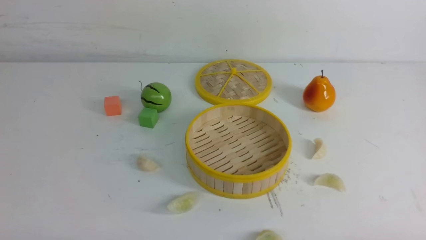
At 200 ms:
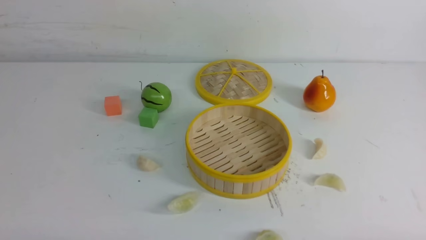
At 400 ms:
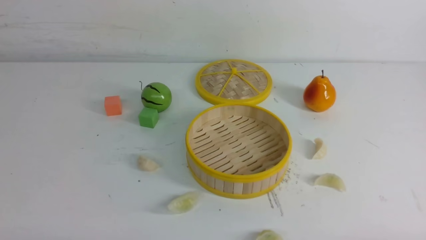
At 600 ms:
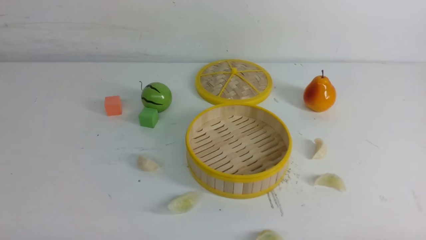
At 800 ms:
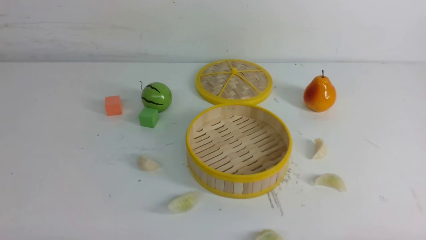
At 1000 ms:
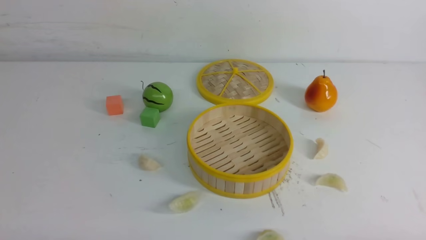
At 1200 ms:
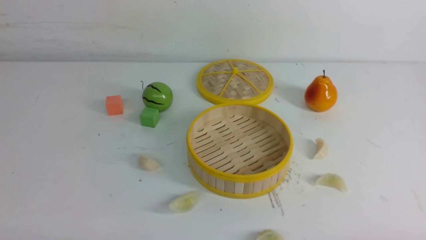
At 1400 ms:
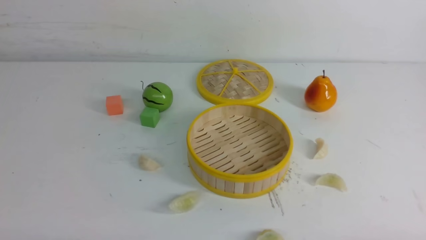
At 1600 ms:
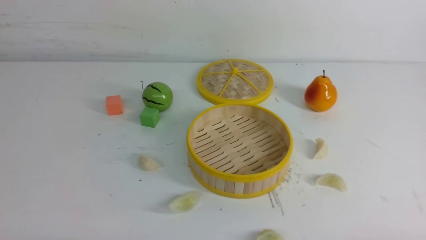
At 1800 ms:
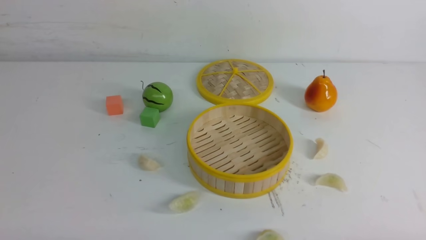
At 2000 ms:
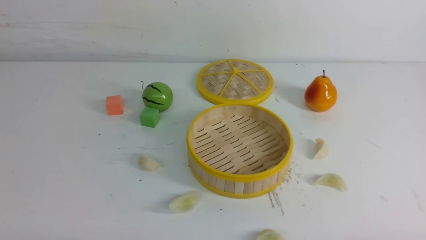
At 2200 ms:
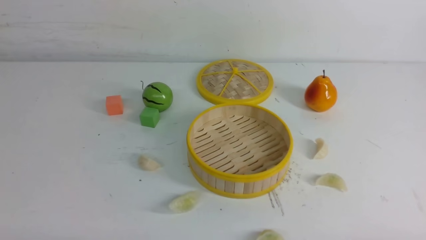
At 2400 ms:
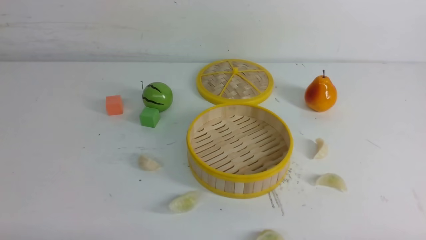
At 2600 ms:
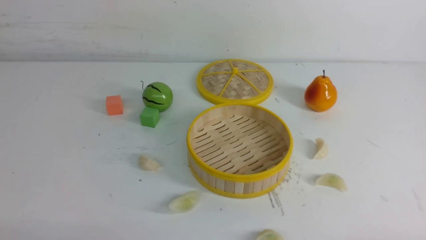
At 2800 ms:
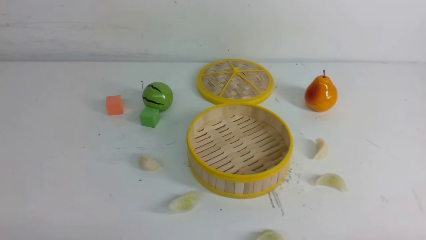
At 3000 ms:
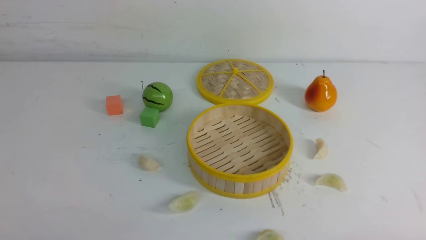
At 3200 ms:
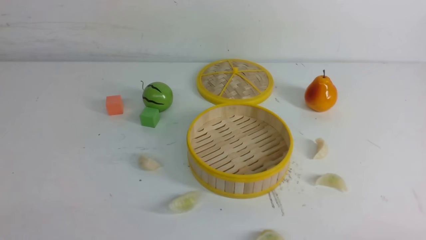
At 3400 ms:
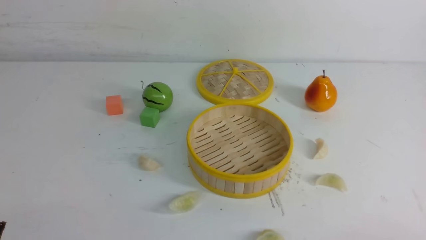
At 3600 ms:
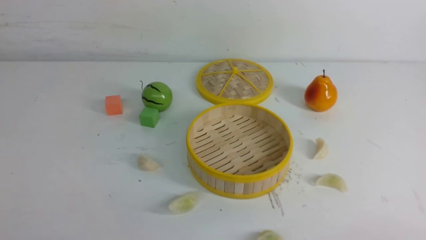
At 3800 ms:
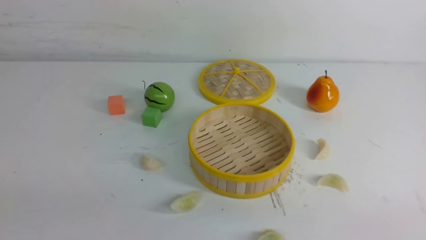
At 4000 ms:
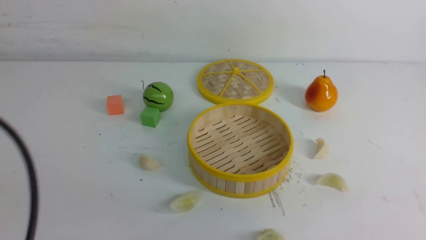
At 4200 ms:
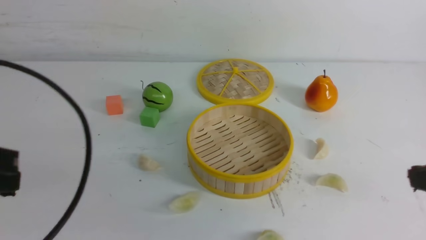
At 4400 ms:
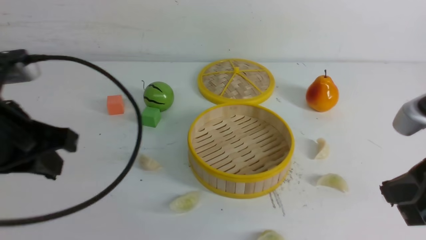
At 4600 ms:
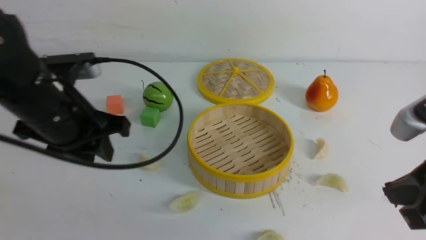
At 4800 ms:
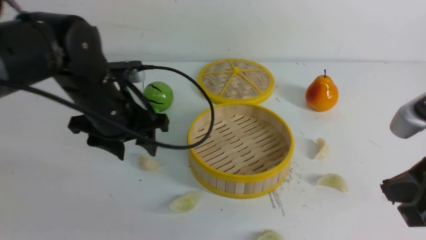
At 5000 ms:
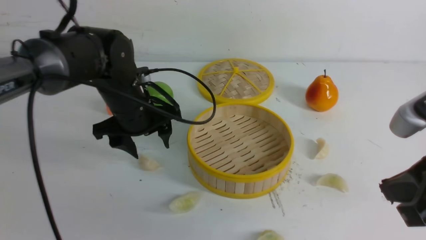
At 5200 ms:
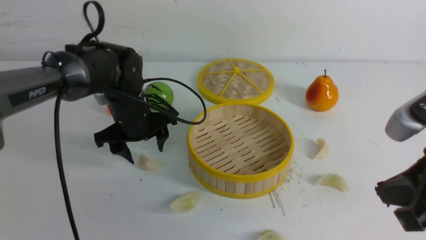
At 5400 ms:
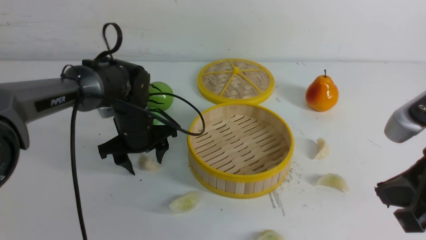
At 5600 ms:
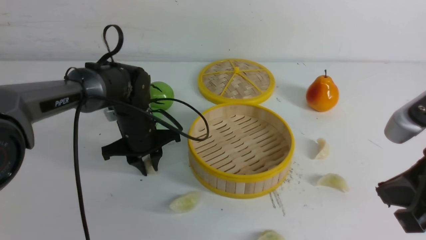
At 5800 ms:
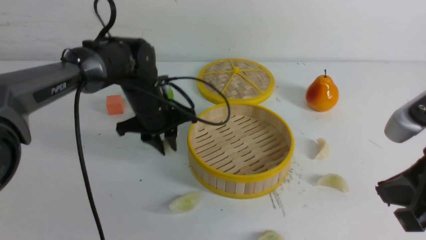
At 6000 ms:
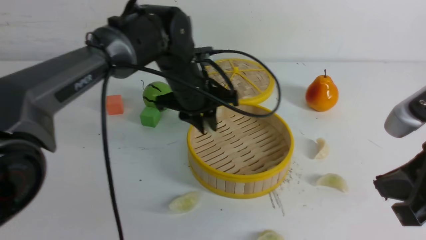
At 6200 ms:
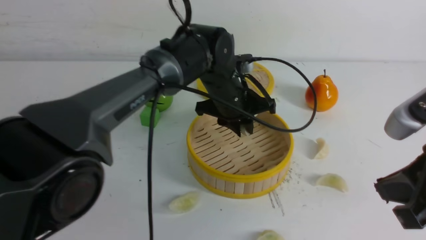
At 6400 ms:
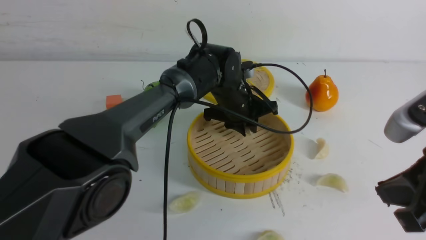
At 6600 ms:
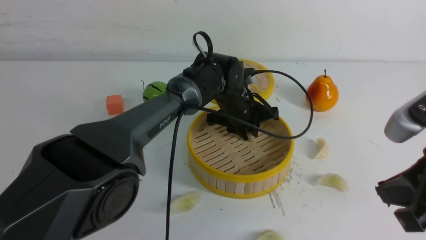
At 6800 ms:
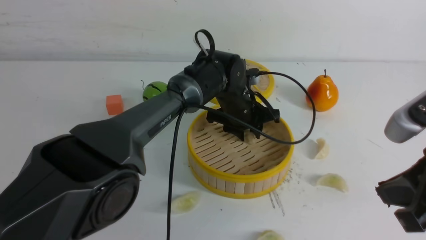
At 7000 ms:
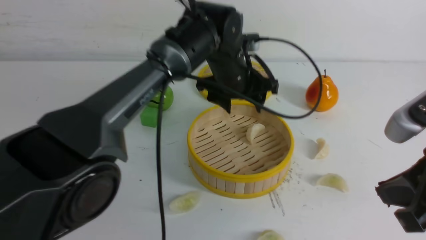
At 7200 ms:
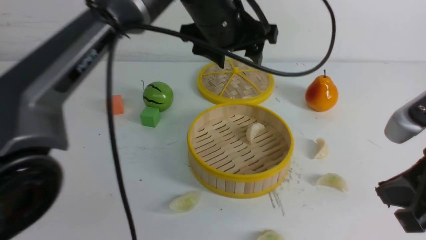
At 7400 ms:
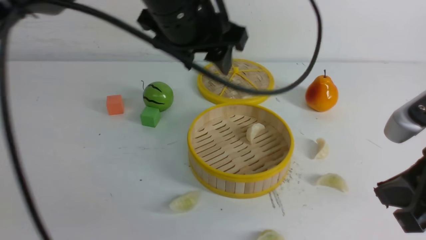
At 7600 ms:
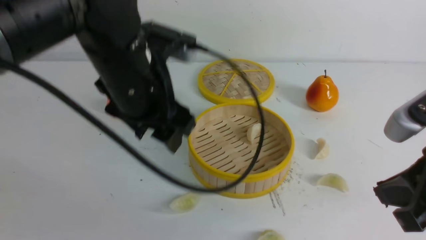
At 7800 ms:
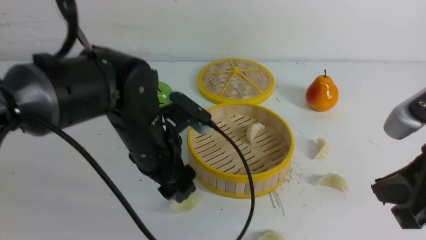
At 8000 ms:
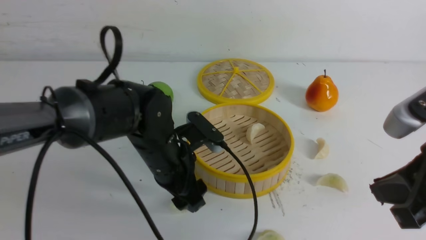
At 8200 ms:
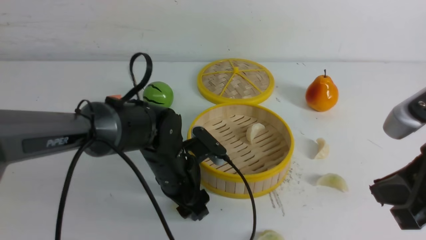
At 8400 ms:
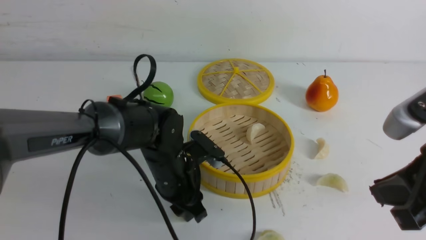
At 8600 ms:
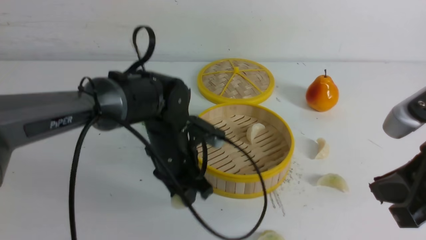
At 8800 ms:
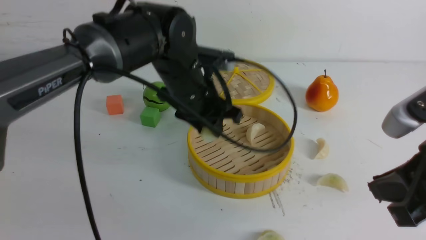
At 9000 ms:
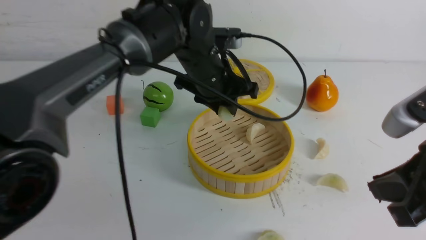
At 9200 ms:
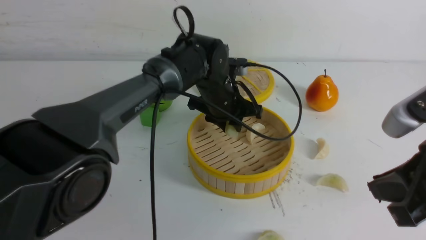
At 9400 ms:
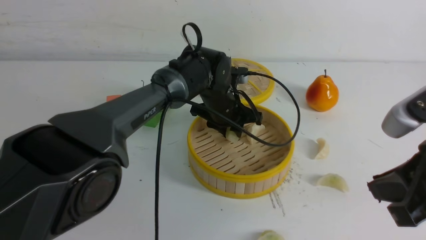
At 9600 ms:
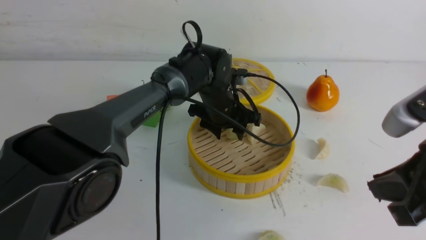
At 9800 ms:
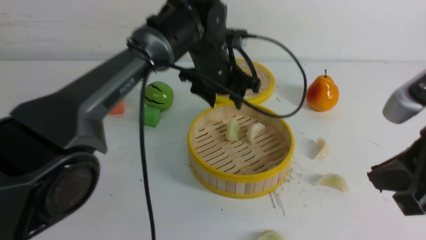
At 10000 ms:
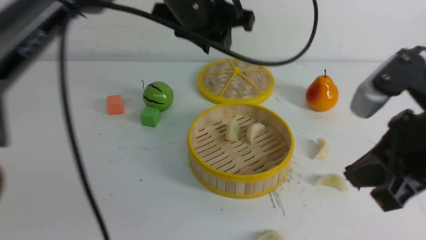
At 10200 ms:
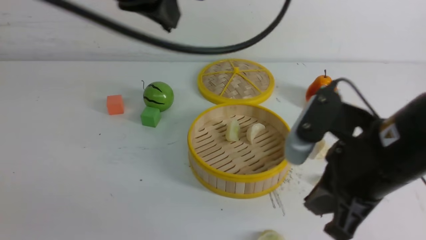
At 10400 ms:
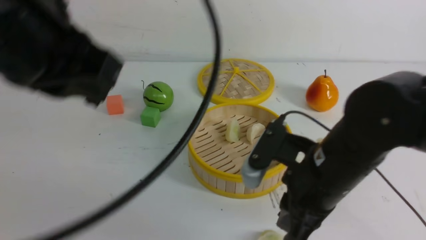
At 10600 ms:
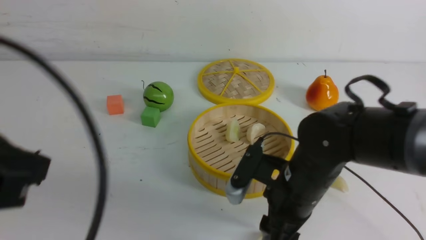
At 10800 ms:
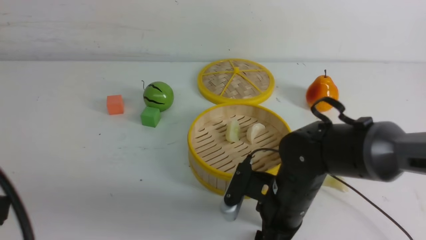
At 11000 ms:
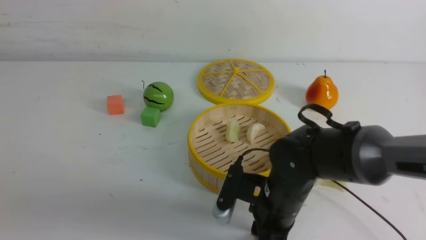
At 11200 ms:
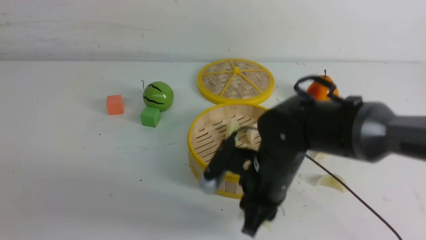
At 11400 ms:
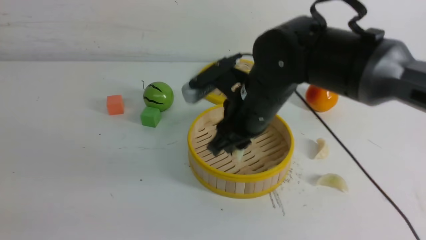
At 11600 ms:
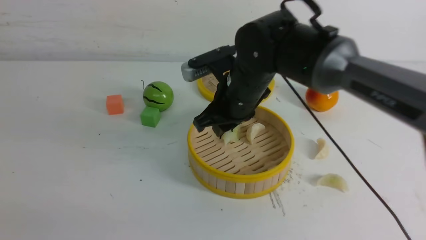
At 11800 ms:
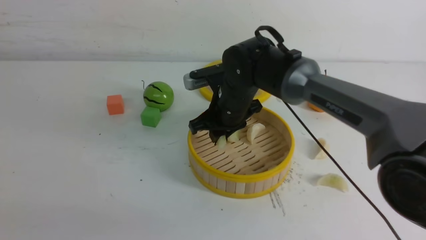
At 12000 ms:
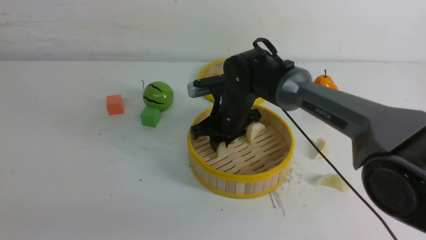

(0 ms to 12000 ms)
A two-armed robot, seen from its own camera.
Task of the whole recording: put the dumplings into the steamer on the white table.
Step, 0 ms - 5600 ms: use the left arm to grab a dumpling.
Step, 5800 ms - 6800 ms: use the left arm to put the dumpling into the steamer.
Step, 7000 ms - 8400 ms: use the left arm to grab a dumpling.
Step, 8600 ms - 9600 ms: use the left arm to put the dumpling into the steamer.
Step, 9800 ms - 11000 ms: use the right arm to grab a dumpling.
0 ms - 1600 ms: Both grippers stay about where they are.
3000 ms - 4400 ms: The right gripper heads upward, forward and to the left, covering approximately 20 cm, and closes its fingers. Meanwhile the left gripper shifts roughly 20 cm forward and upward.
4400 ms - 6000 ms: The left gripper shifts about 30 cm forward, to the right and downward, and opens and closes again.
6000 ms - 7600 ms: The left gripper swings up and down, approximately 20 cm each way, with 2 reversals, and opens its fingers.
7600 ms - 9000 ms: The left gripper heads forward, to the right and downward, covering about 15 cm, and closes its fingers.
9000 ms - 10400 ms: The left gripper is displaced backward, upward and to the left by roughly 35 cm, and closes, while the right gripper is displaced to the left, downward and forward by approximately 15 cm.
10400 ms - 12000 ms: The right gripper goes some 20 cm forward and to the left, while the left gripper moves backward, to the left and downward, some 20 cm.

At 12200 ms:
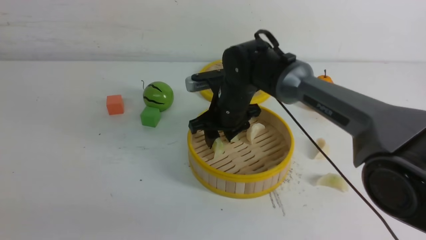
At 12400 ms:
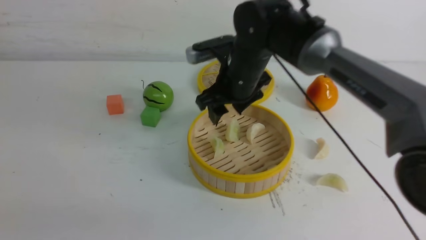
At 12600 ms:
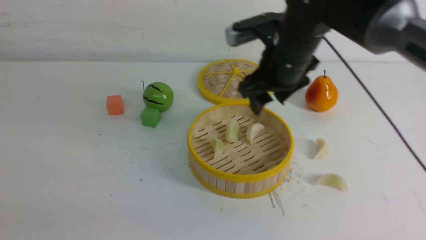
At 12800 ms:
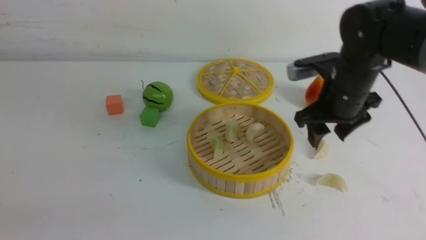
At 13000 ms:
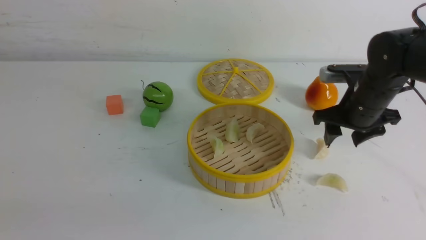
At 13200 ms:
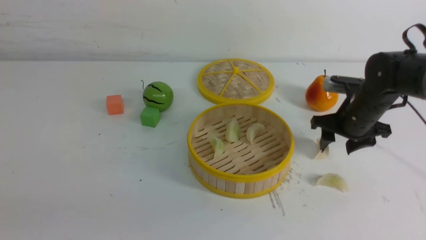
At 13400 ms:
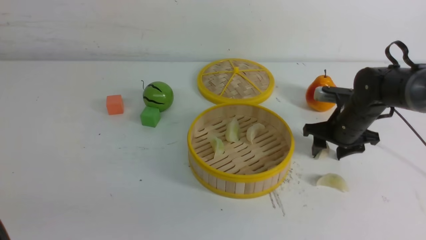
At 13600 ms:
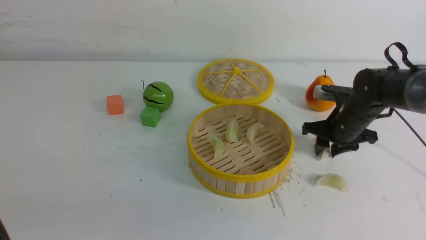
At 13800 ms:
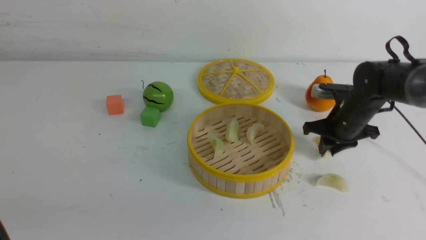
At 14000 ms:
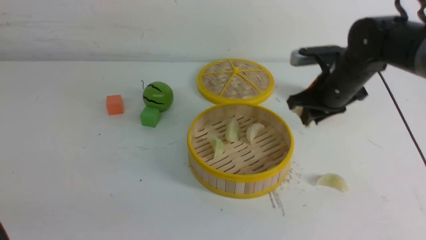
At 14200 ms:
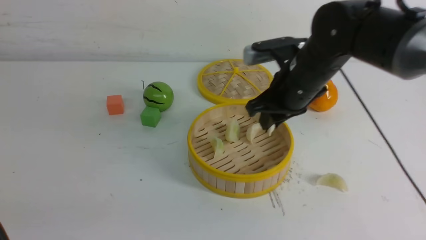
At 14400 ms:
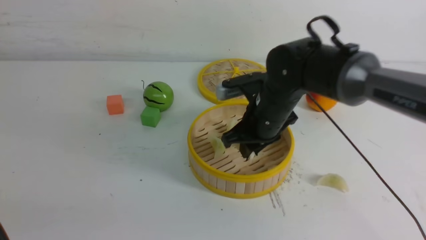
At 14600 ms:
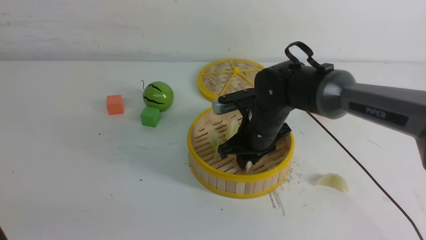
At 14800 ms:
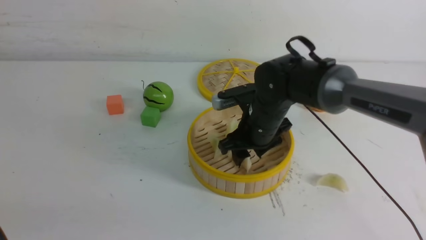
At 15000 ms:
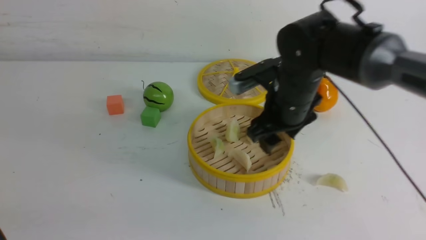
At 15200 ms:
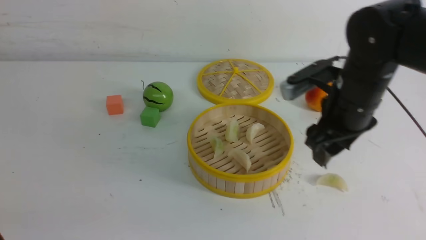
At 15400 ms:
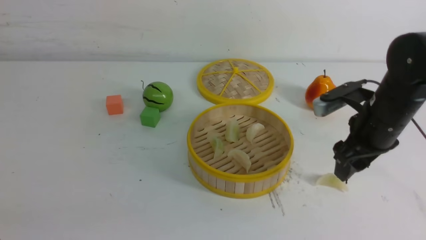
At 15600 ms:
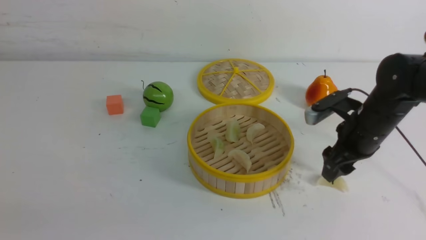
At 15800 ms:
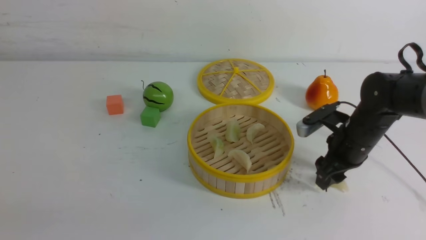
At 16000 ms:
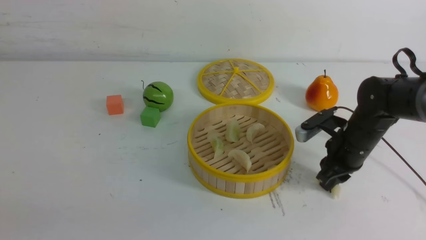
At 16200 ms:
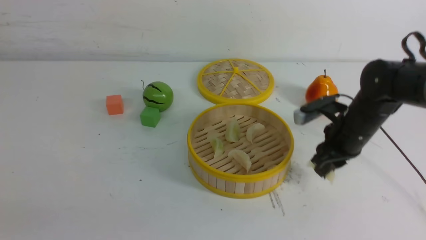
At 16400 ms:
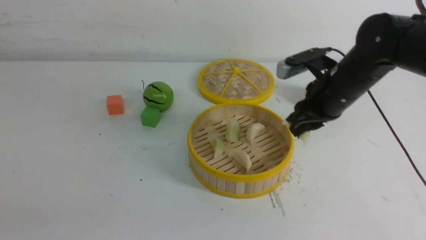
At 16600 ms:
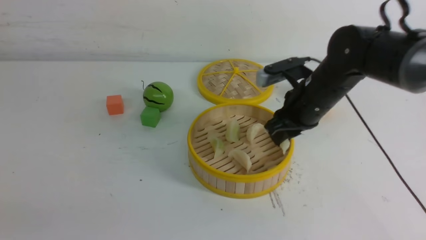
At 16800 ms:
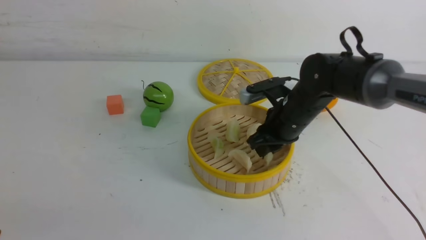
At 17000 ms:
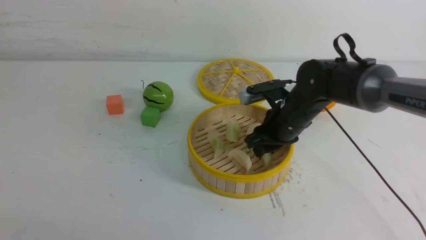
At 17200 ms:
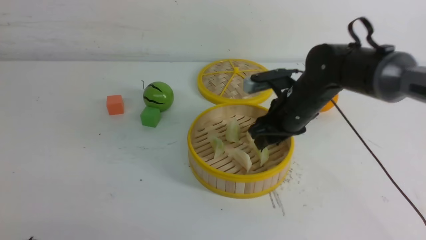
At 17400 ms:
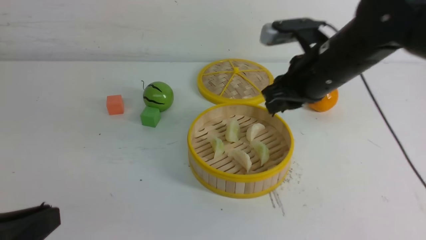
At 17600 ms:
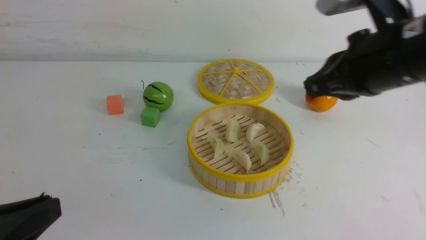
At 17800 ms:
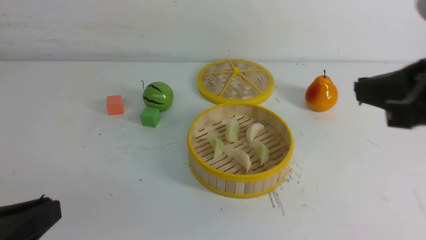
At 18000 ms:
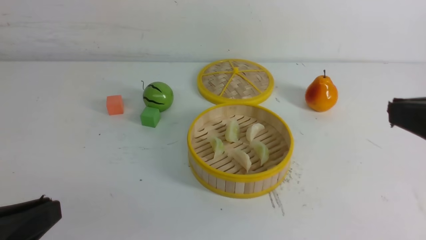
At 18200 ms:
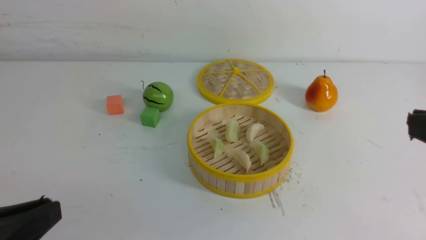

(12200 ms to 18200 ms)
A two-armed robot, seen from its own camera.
Task of the whole recording: put the dumplings into the steamer on the white table.
Step, 12400 ms - 13800 ms: use the right arm to grab a dumpling.
Step, 14000 ms - 14600 ms: use the right arm to put the dumpling into the steamer.
Step, 15000 ms - 16000 ms: use the right arm to grab a dumpling.
Step, 16200 ms - 17200 ms: use the right arm to put the dumpling into the steamer.
12200 ms - 13800 ms: The right gripper is displaced to the right by about 20 cm, and closes.
13800 ms - 15200 ms: The right gripper goes approximately 10 cm backward and upward, travels to the left and back again, approximately 15 cm each way, and opens.
15200 ms - 16600 ms: The right gripper travels downward and back again, about 10 cm each way, and closes.
16600 ms - 18200 ms: The right gripper moves backward and upward, about 30 cm, and closes its fingers. Meanwhile the left gripper goes roughly 5 cm downward.
